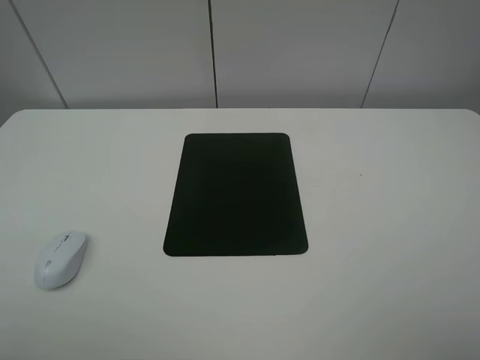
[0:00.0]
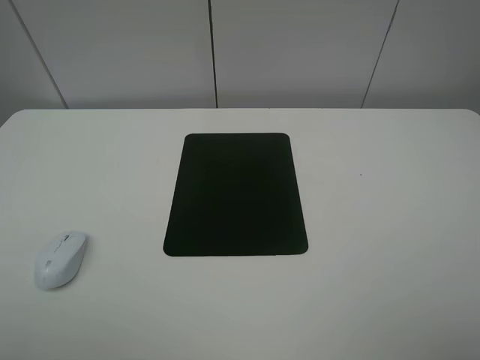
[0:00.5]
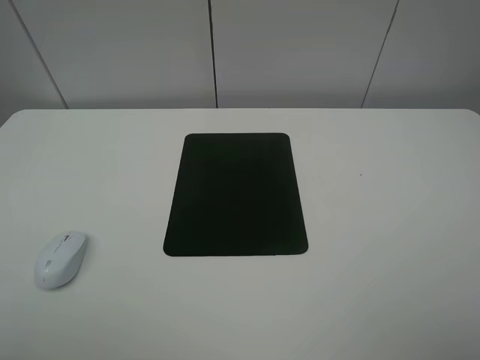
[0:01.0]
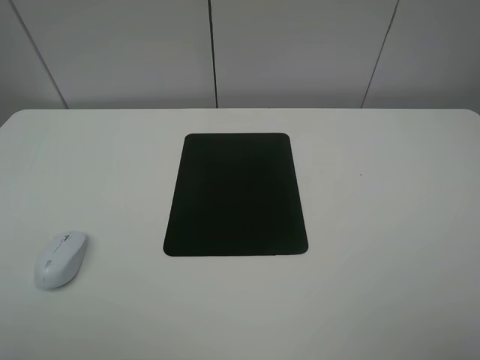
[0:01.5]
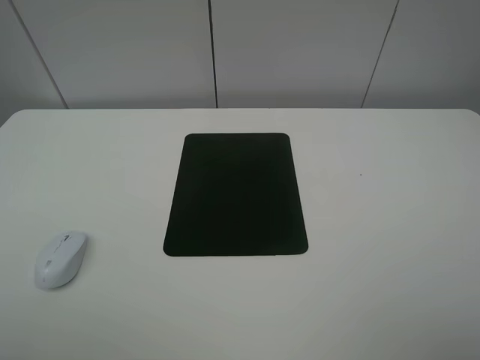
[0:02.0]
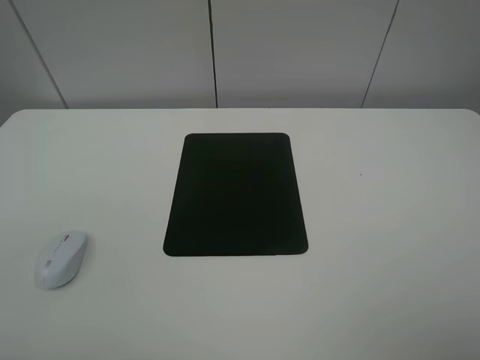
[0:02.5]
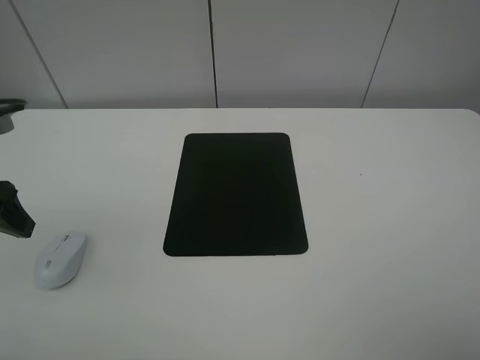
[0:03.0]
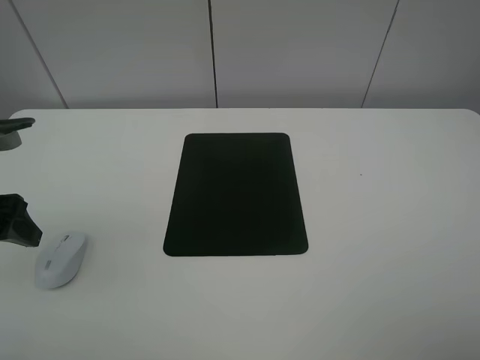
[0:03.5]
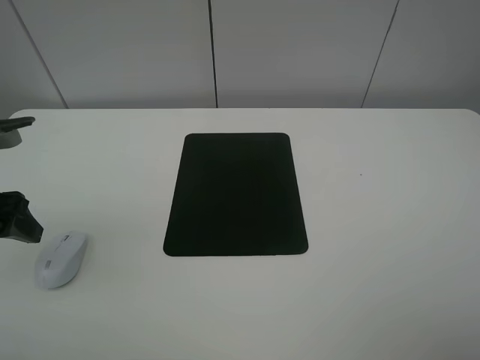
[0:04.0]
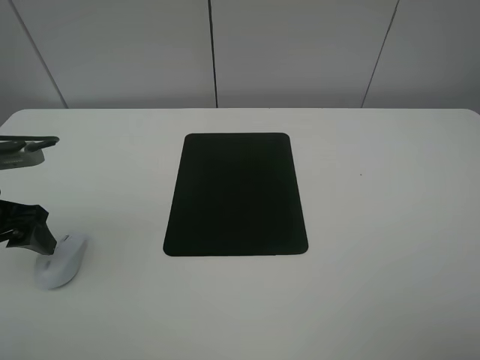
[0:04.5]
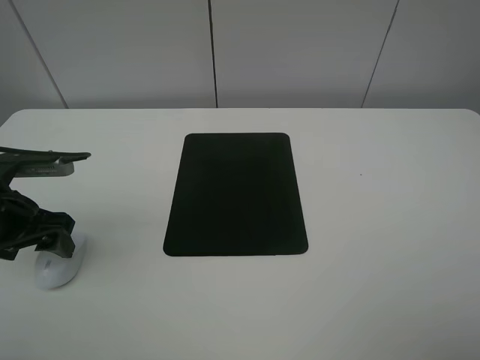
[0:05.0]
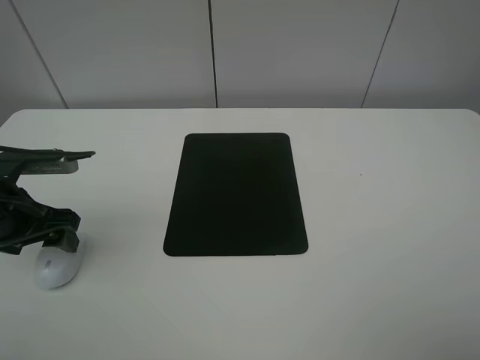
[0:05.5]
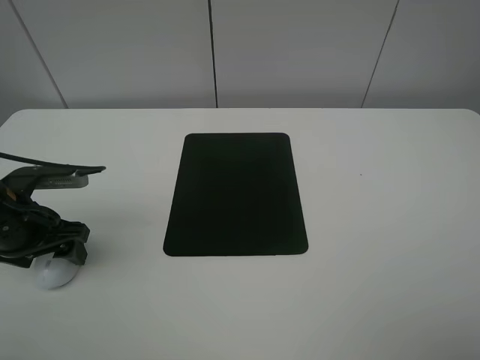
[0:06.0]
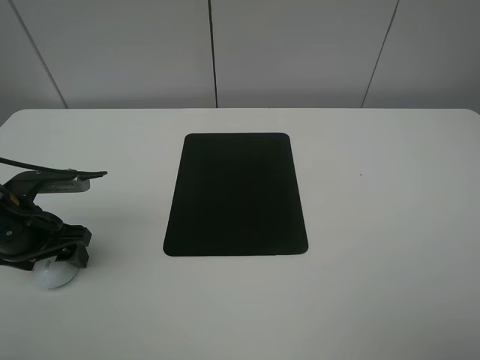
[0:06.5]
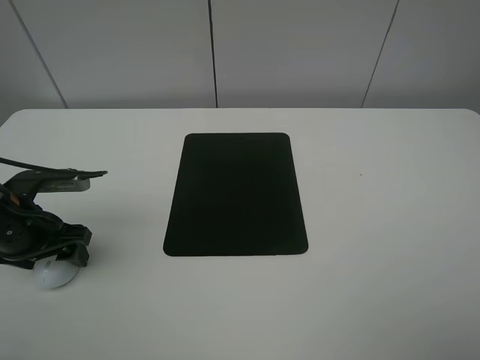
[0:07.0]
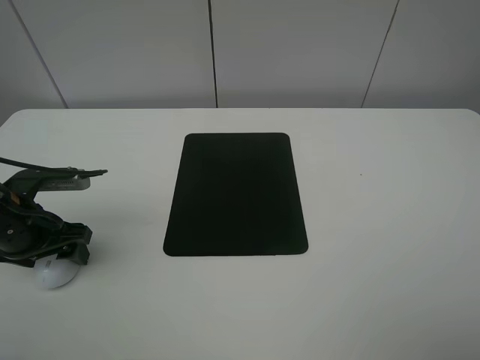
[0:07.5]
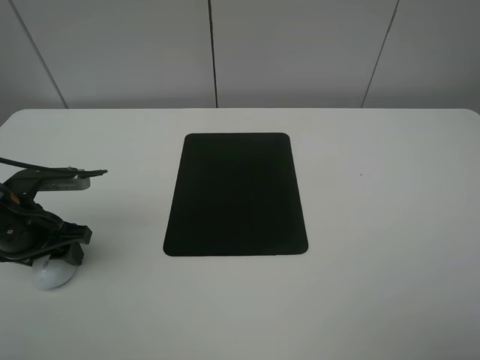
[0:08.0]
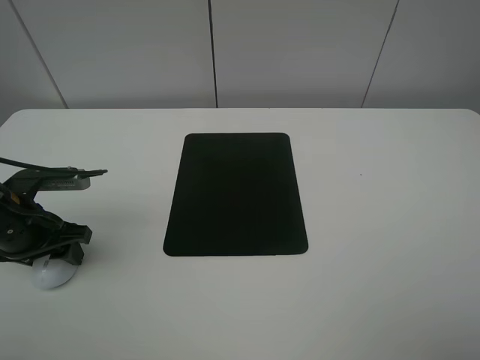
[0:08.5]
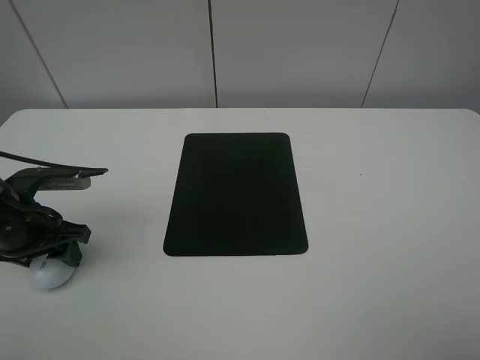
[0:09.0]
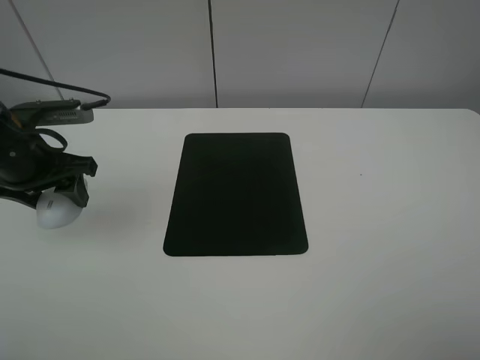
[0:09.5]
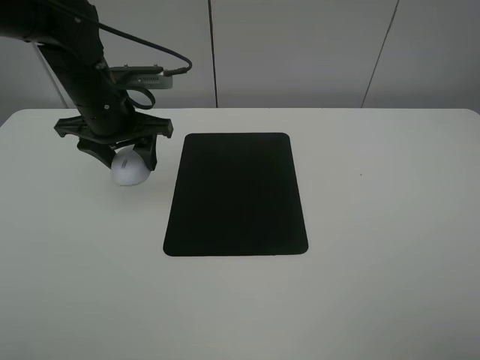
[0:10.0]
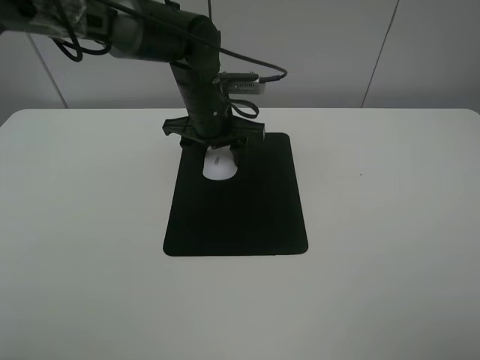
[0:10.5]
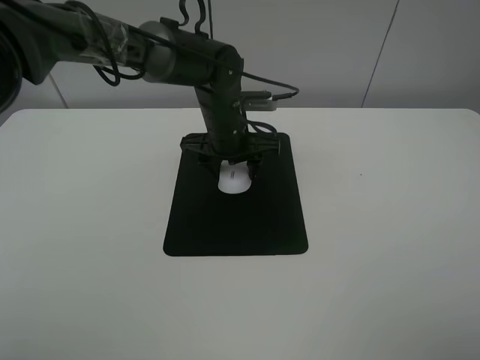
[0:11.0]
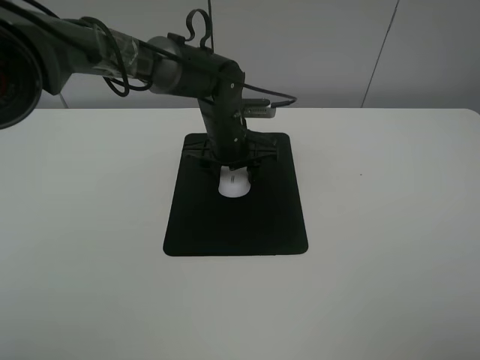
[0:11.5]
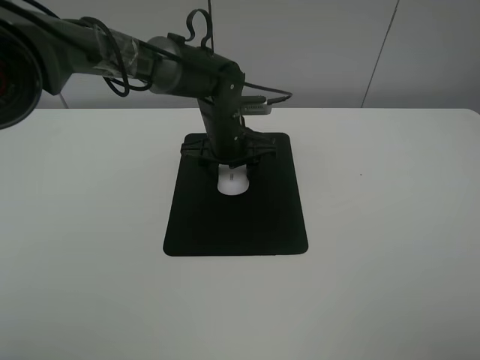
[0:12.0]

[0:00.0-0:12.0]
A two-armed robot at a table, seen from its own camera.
Step, 0:00.0 to 0:08.5: Grasp the mouse with the left gripper.
Step, 0:09.0 to 0:12.0: Place the mouse on the mouse mat with the left gripper.
0:02.0 to 0:04.0: The left gripper shifts roughly 15 cm forward and downward.
0:04.0 to 0:06.0: The left gripper moves downward, approximately 10 cm.
0:06.0 to 0:08.0: The left gripper closes.
0:08.0 to 0:10.0: The left gripper heads to the right, forward and upward, covering approximately 20 cm.
0:10.0 to 0:12.0: The left gripper heads to the right and downward, covering roughly 15 cm.

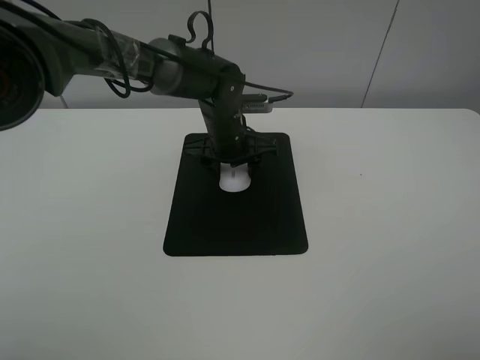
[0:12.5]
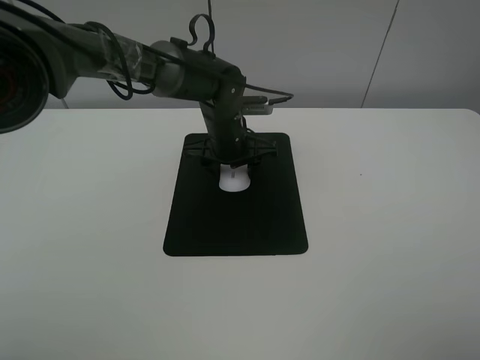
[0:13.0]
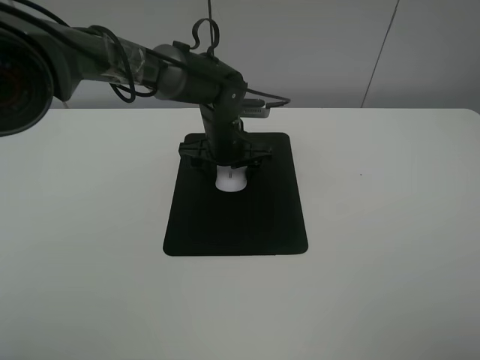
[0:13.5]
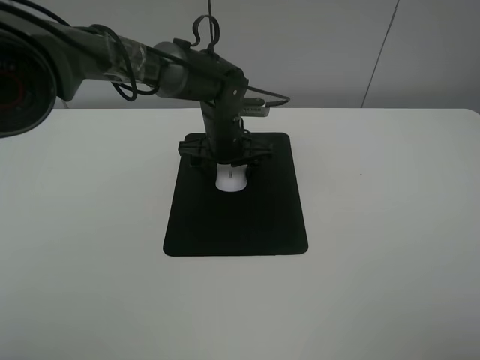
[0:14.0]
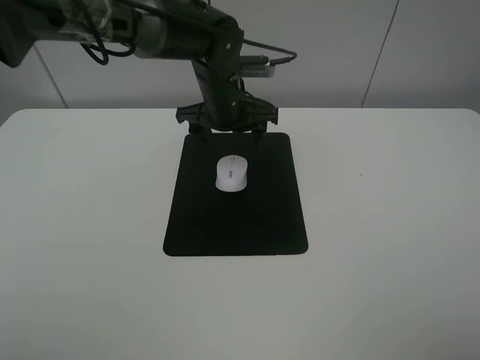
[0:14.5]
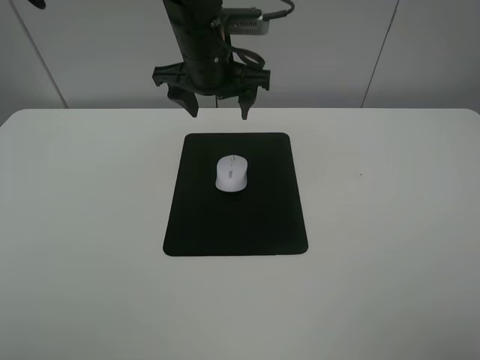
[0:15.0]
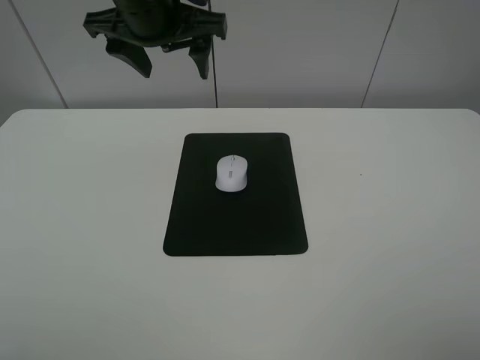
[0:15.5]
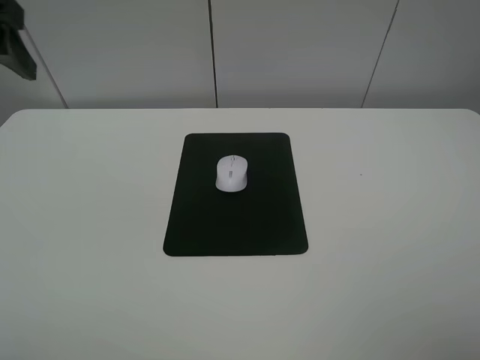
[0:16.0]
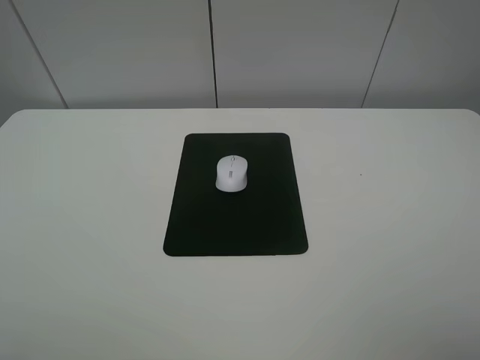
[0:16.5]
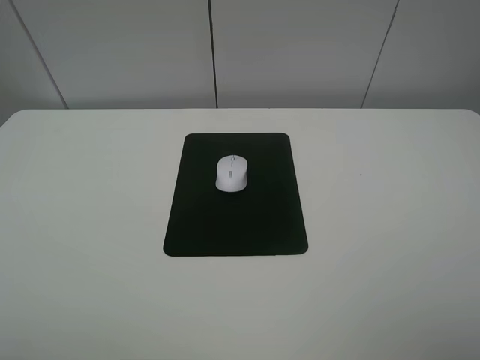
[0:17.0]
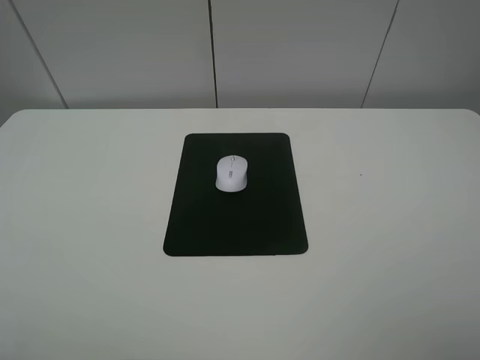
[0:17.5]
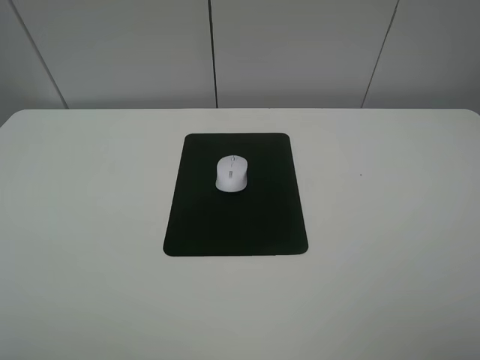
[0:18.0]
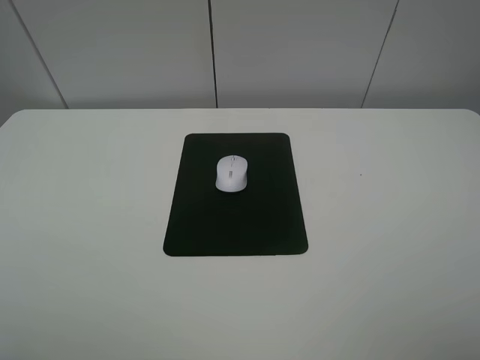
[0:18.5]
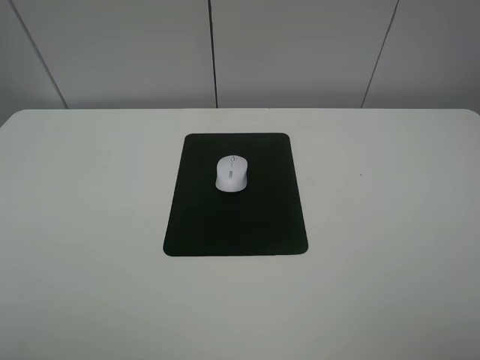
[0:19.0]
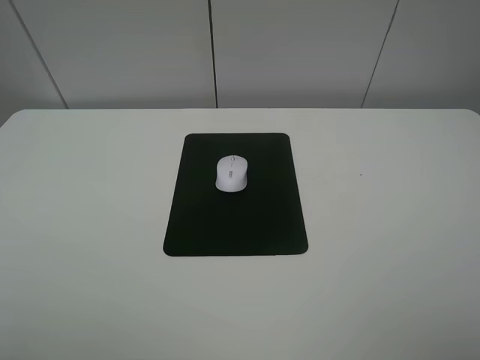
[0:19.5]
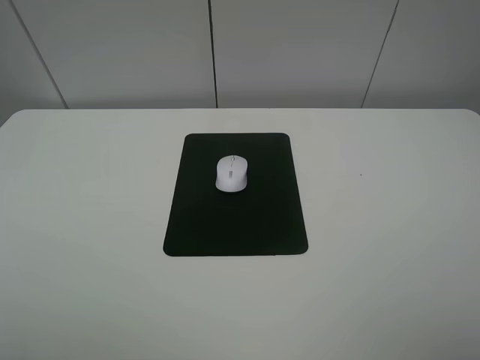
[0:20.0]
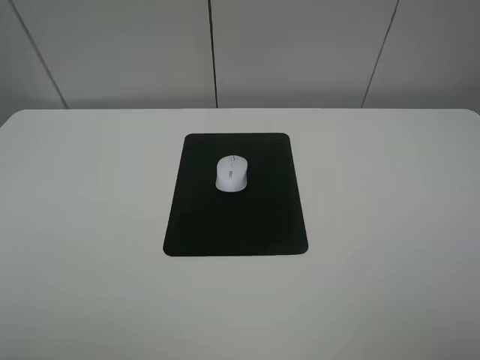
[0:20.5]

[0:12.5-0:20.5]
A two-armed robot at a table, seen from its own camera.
0:12.5 to 0:14.5: The left gripper travels upward by roughly 5 cm, and opens its fingers.
0:14.5 to 0:16.5: The left gripper is displaced backward, to the left and upward by some 50 cm.
